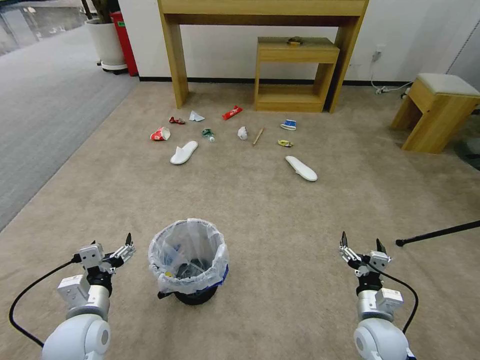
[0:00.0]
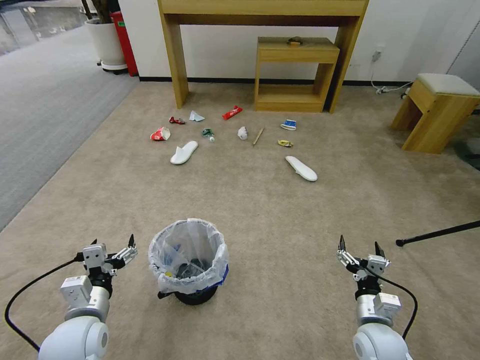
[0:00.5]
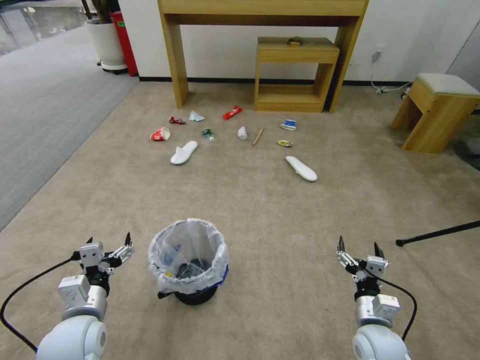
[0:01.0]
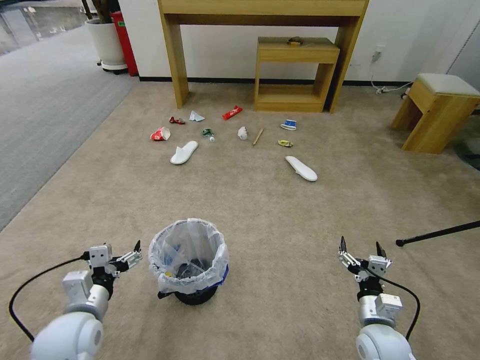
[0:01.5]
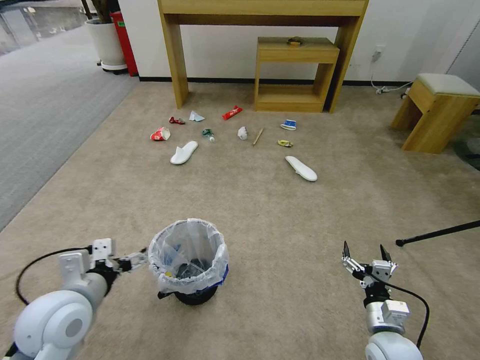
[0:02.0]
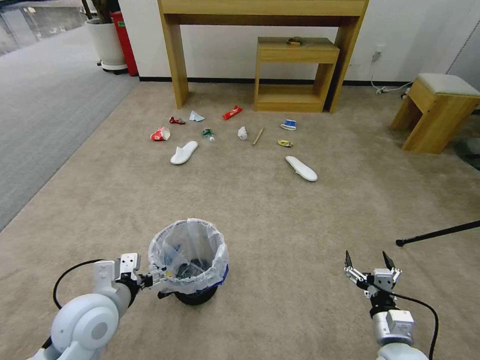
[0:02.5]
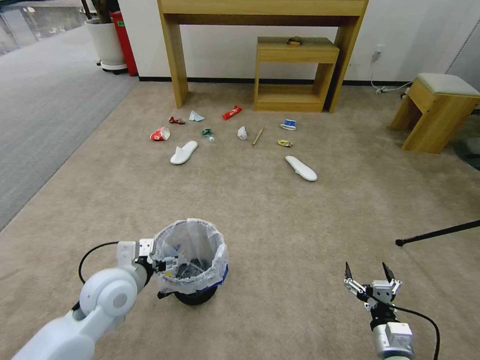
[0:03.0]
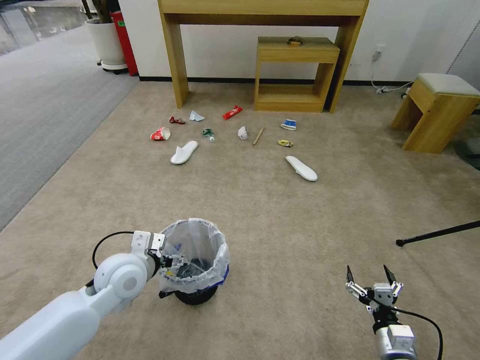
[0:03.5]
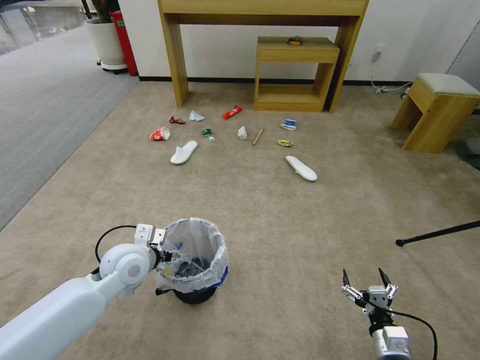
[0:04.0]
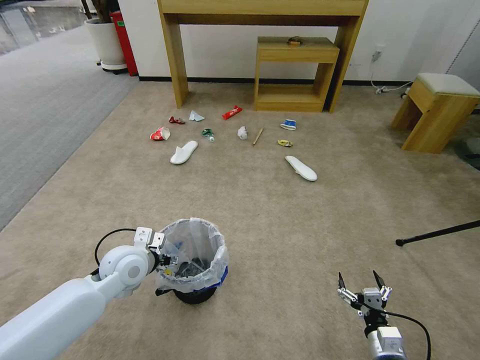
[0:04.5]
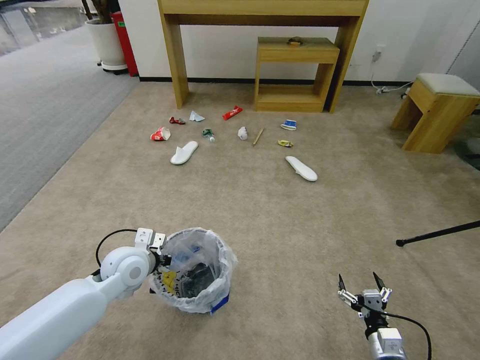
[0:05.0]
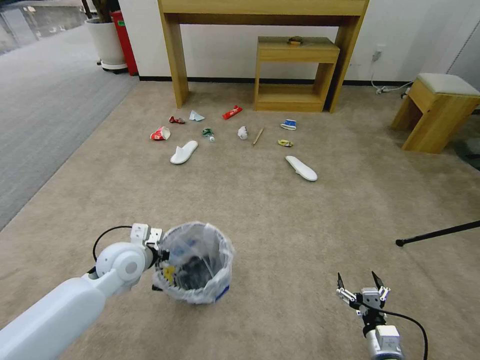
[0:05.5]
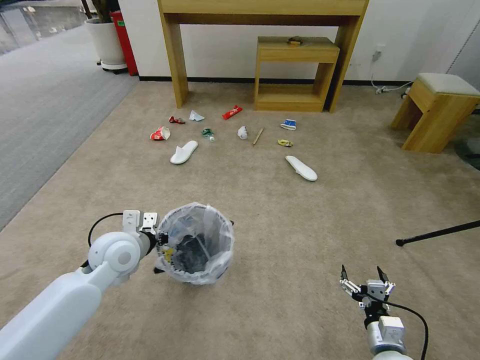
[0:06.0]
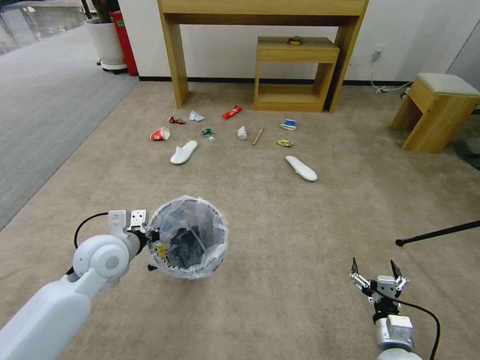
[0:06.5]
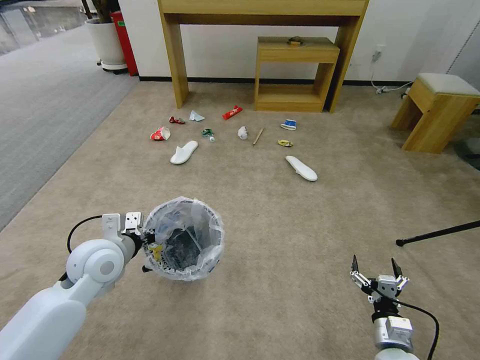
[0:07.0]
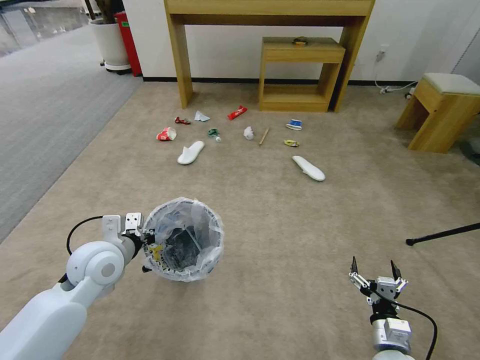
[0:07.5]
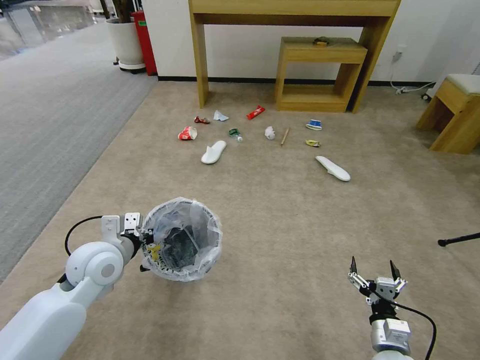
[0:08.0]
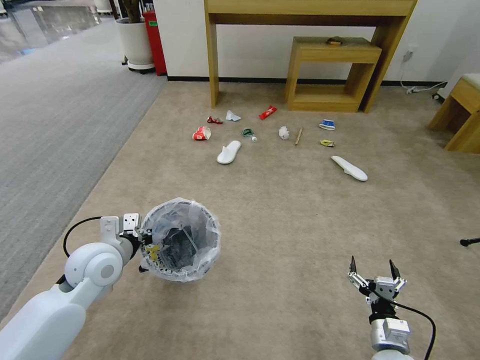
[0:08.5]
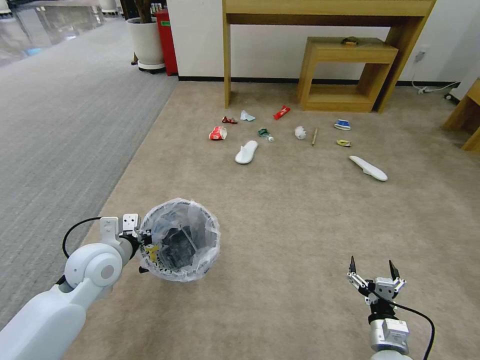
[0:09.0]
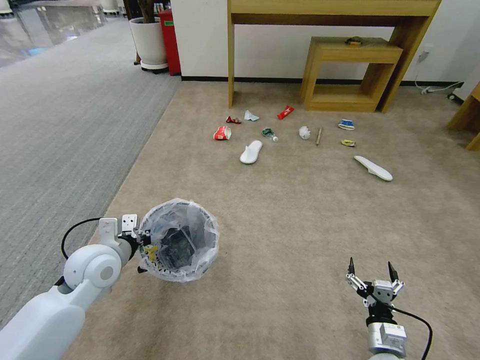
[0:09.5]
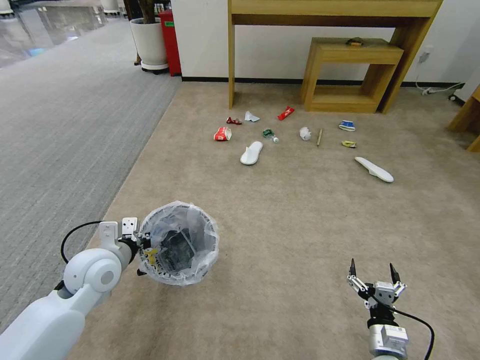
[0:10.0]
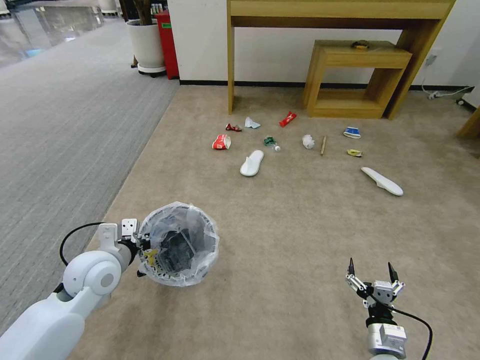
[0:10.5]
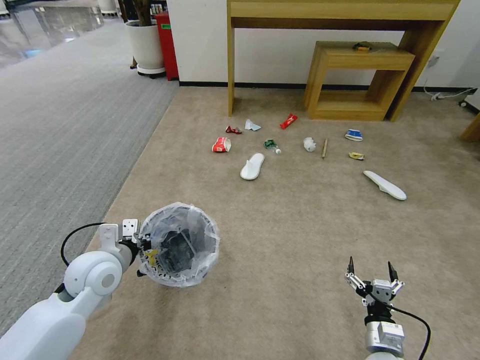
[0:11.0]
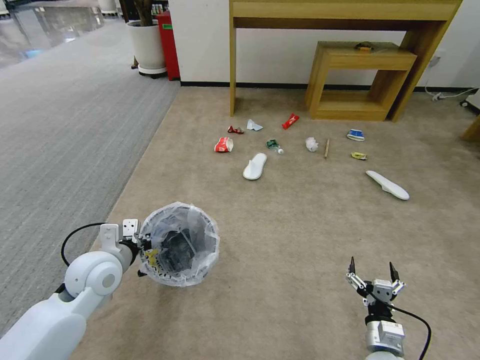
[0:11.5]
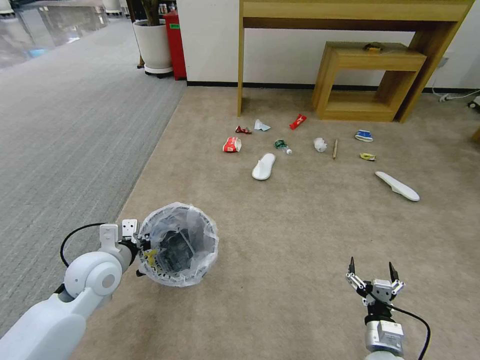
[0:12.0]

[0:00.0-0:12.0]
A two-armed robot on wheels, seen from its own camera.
Task of the whole recording: Pick up the trash bin and place the garbage on the floor into it.
0:02.0 to 0:04.0: The left gripper goes approximately 15 cm forward and to the right; the right gripper changes place by some 5 cm.
0:04.0 to 0:06.0: The left gripper closes its fingers.
0:10.0 to 0:12.0: Both grippers stay about where they are.

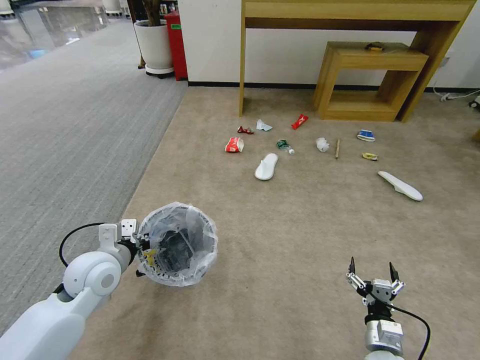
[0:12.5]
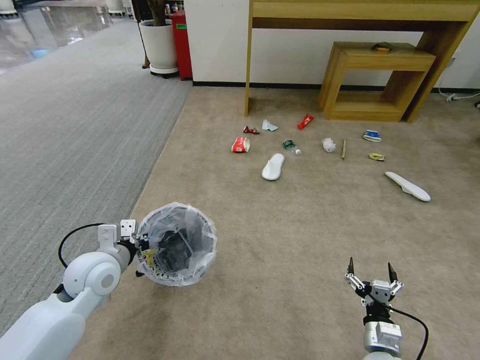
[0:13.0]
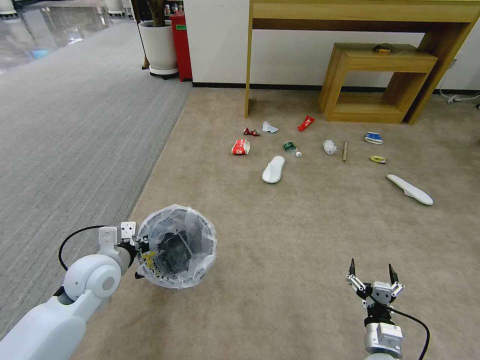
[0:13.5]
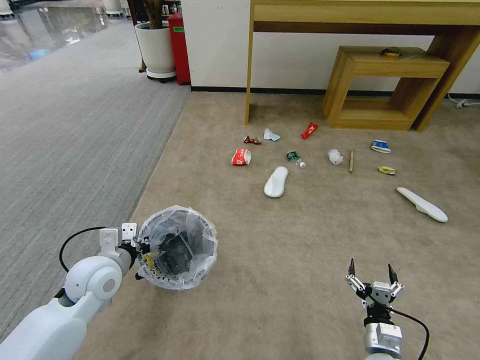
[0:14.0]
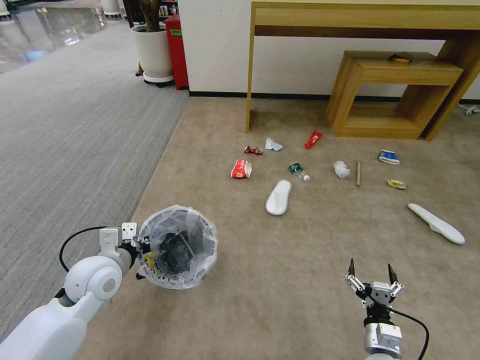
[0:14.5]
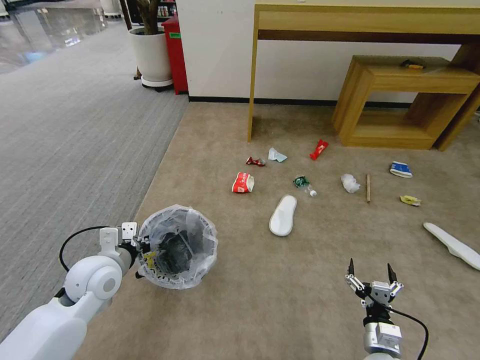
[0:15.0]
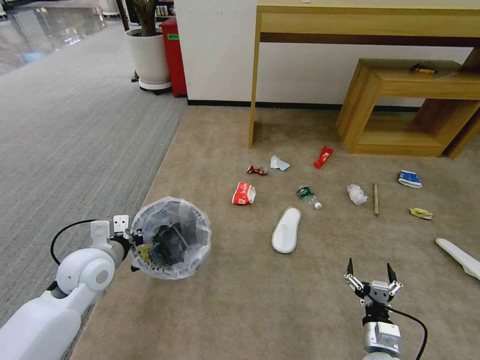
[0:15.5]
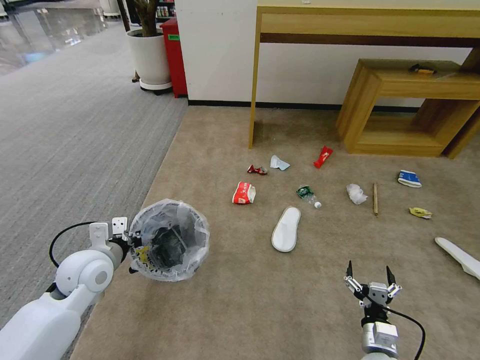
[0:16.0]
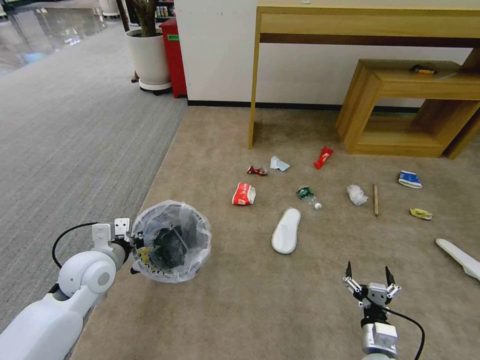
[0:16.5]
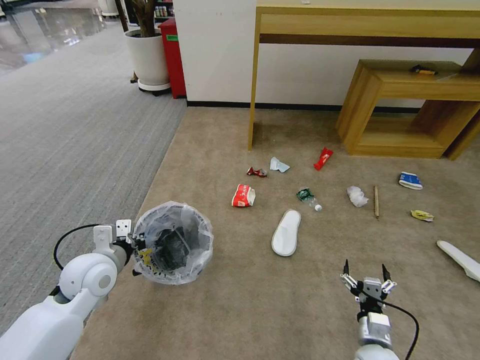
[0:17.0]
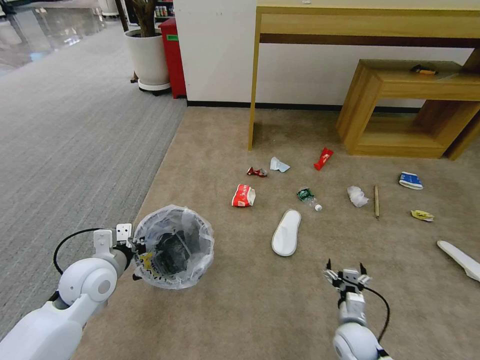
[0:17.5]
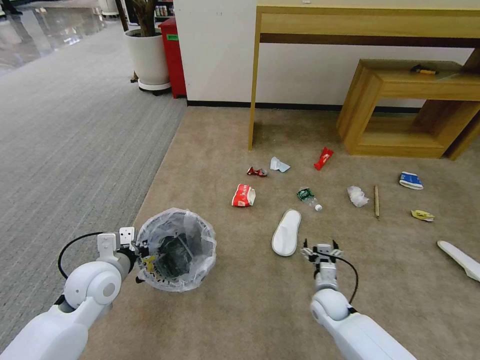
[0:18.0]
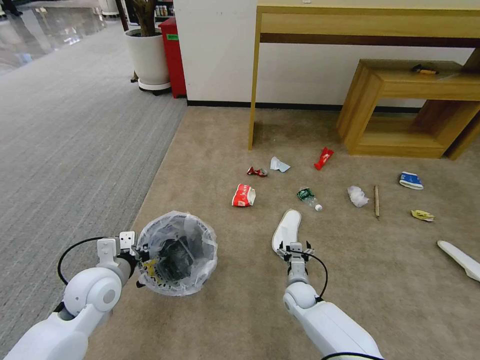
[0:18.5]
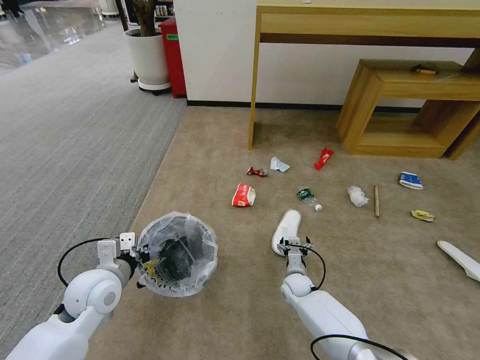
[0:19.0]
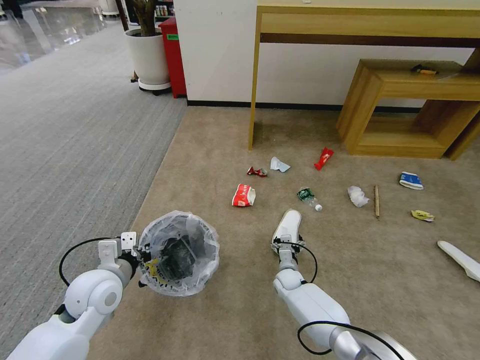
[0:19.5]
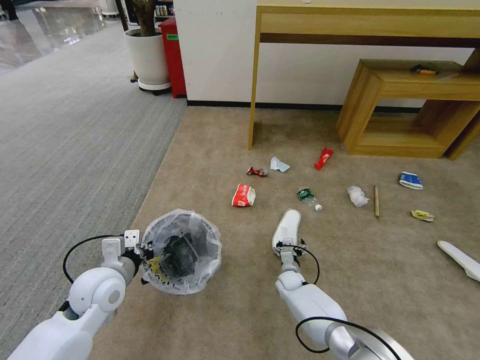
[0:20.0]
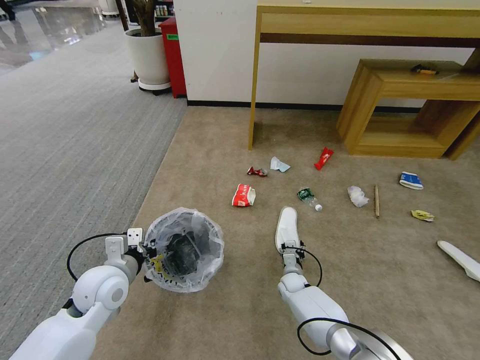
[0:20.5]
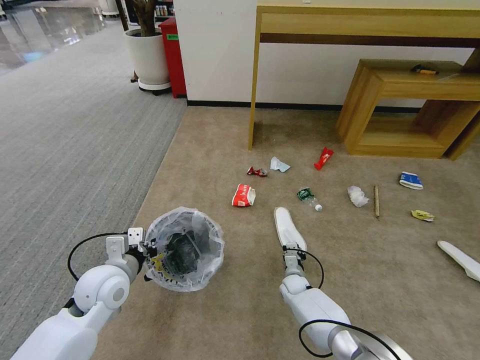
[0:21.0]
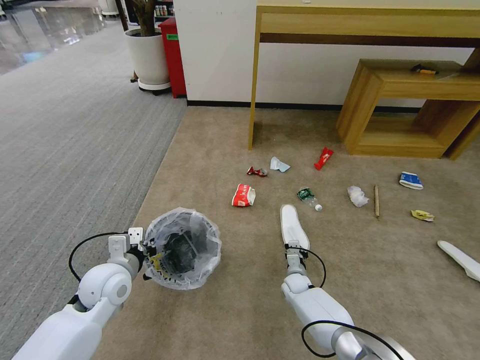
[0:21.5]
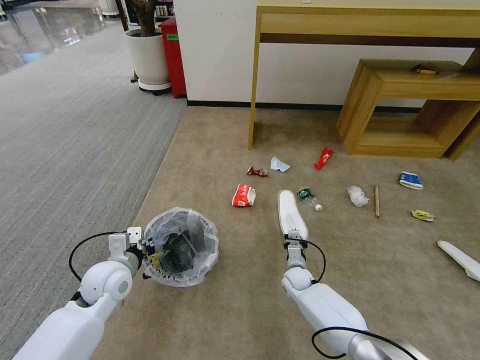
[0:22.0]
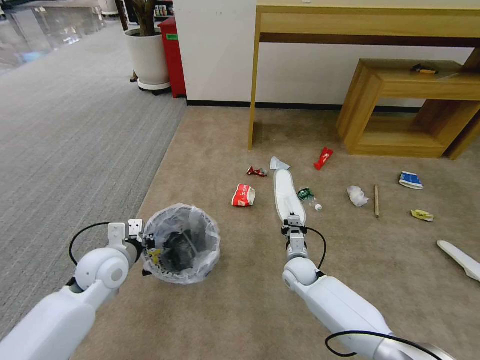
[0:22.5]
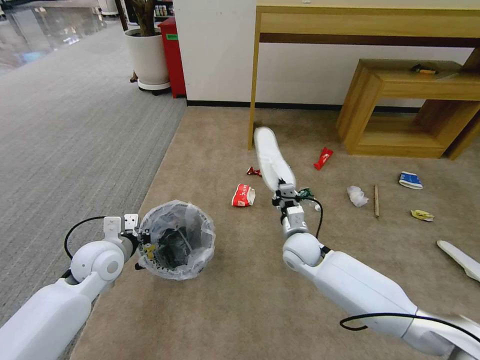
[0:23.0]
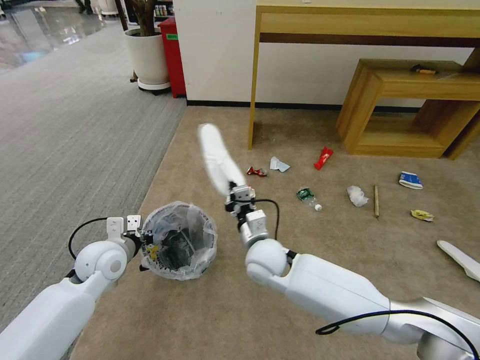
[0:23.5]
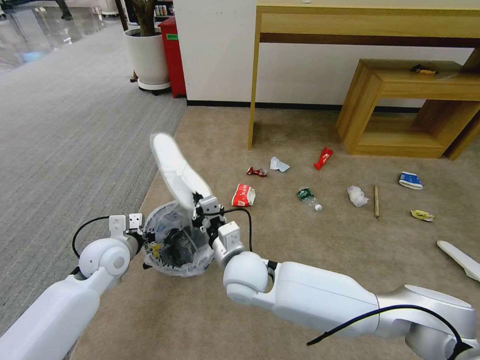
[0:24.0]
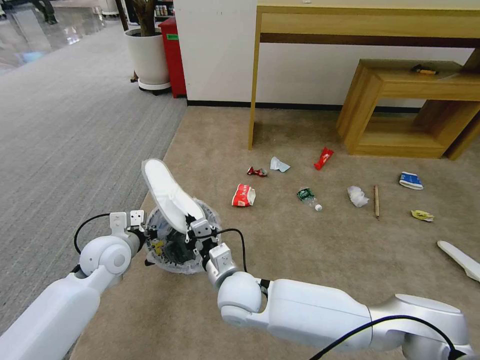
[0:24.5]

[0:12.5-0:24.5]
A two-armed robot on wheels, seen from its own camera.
Task of the whole recording: Pick up the trash bin and place the garbage on the floor into it.
0:16.5 to 0:18.5: The right gripper shifts some 25 cm forward and to the left.
0:18.5 to 0:20.5: The right gripper heads forward and downward, covering about 10 cm.
0:20.5 to 0:22.5: The right gripper is displaced upward by roughly 10 cm, and closes its fingers.
0:22.5 to 0:24.5: The right gripper is displaced to the left, upward and backward by about 25 cm.

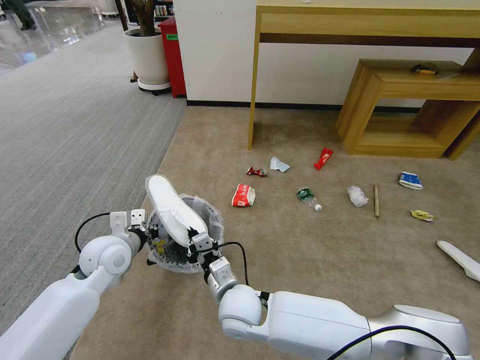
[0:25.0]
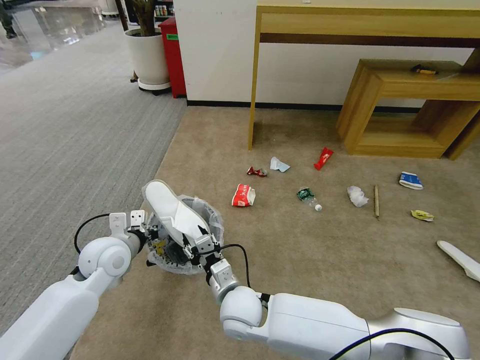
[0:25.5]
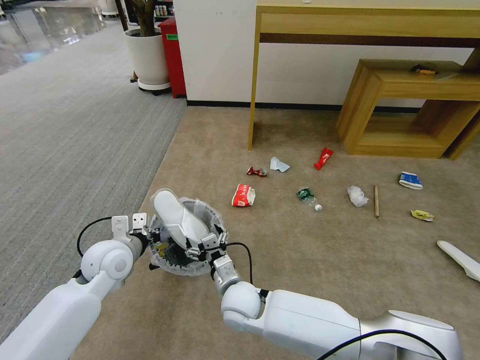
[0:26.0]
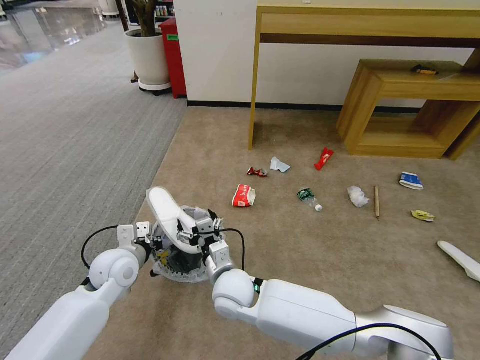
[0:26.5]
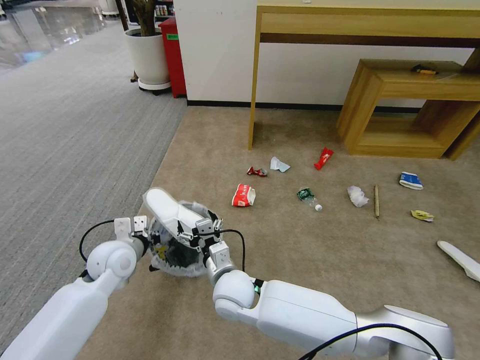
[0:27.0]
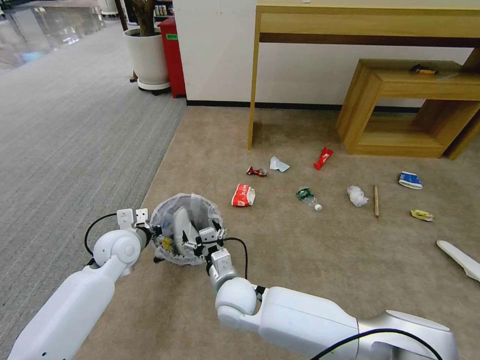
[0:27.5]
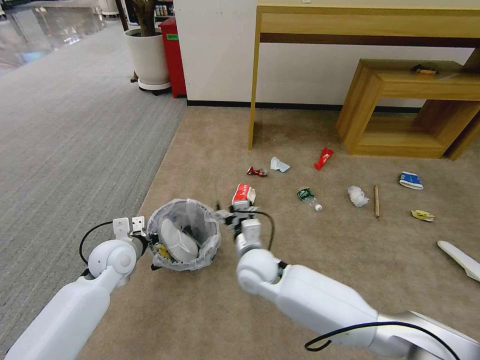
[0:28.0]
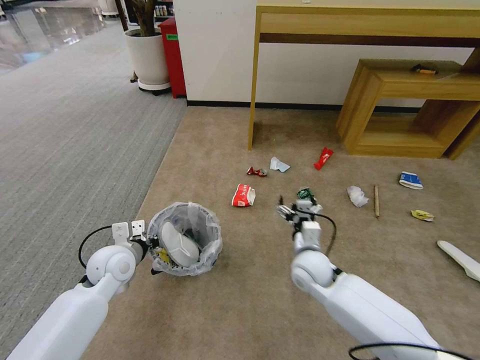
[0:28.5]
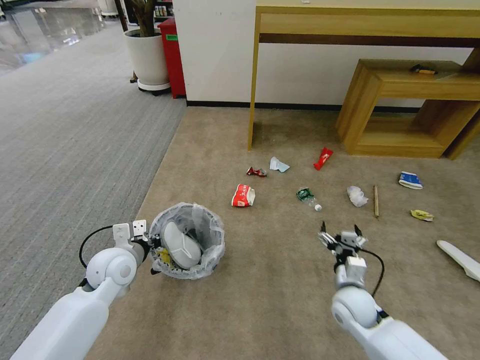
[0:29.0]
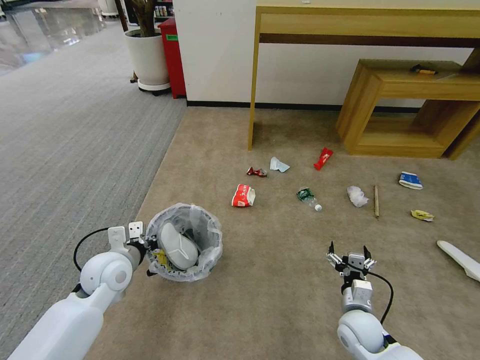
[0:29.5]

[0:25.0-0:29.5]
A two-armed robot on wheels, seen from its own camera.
Task of the whole recording: Pick up the trash bin and place the garbage on the floor into it.
0:25.0 to 0:27.0: The right gripper opens.
0:27.0 to 0:29.5: The right gripper shifts approximately 30 cm to the right.
